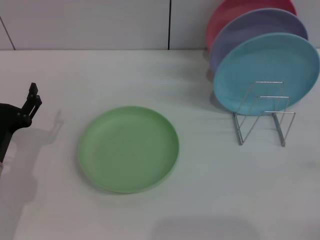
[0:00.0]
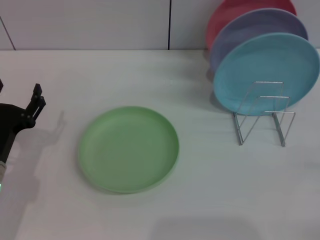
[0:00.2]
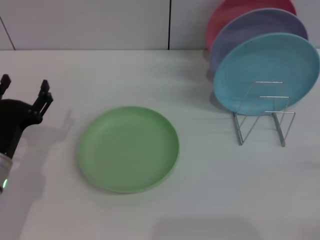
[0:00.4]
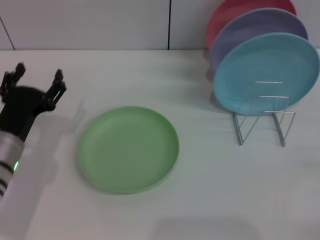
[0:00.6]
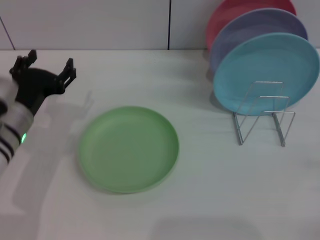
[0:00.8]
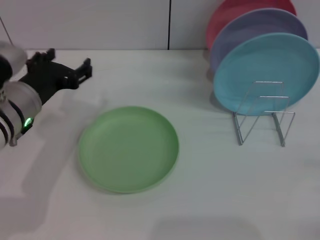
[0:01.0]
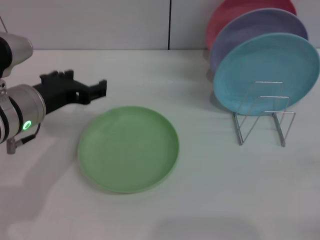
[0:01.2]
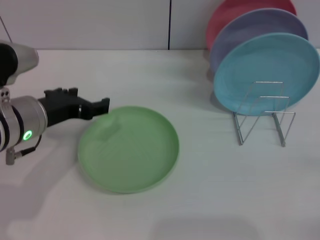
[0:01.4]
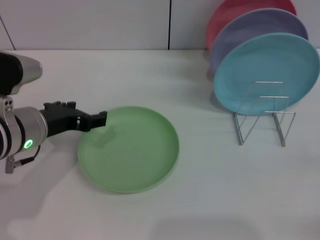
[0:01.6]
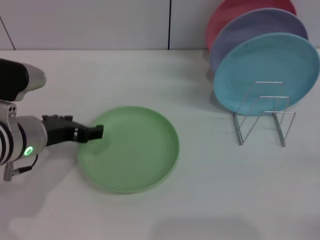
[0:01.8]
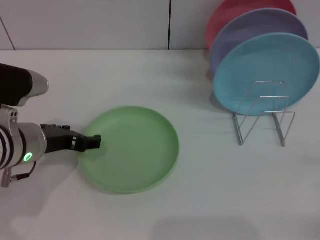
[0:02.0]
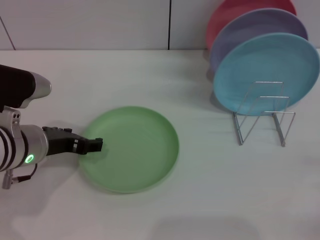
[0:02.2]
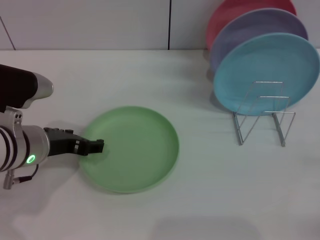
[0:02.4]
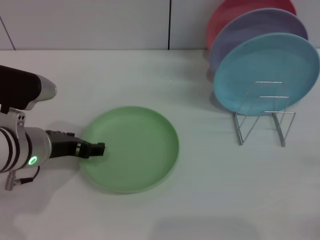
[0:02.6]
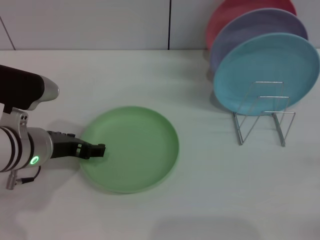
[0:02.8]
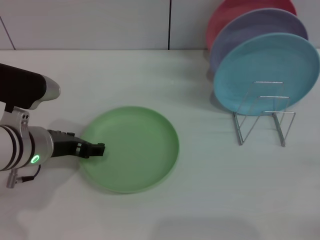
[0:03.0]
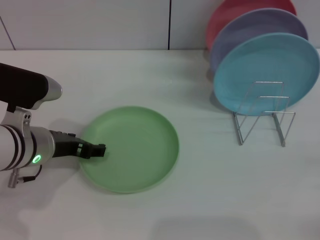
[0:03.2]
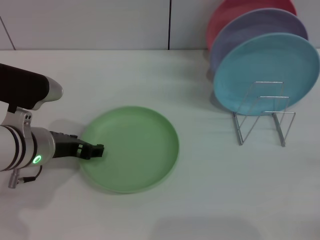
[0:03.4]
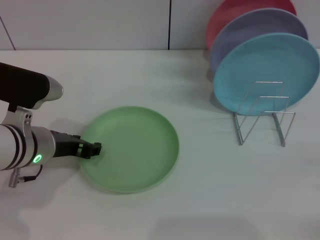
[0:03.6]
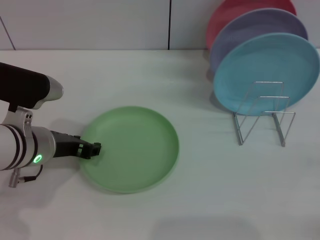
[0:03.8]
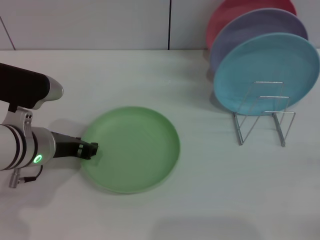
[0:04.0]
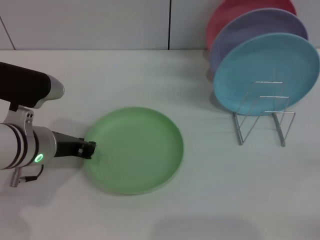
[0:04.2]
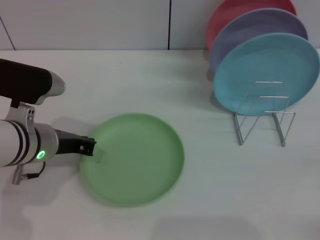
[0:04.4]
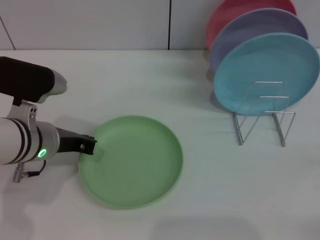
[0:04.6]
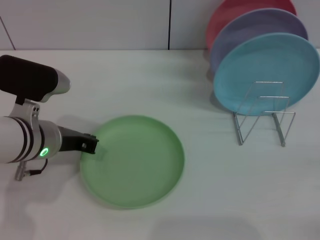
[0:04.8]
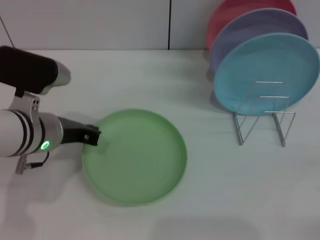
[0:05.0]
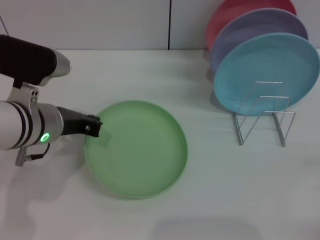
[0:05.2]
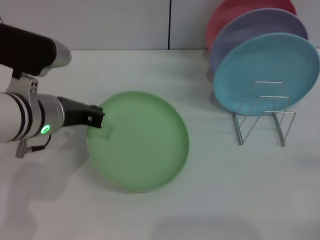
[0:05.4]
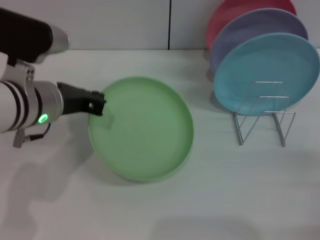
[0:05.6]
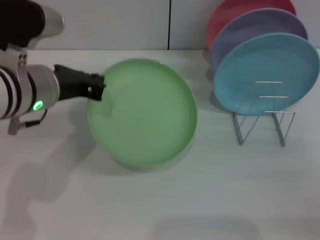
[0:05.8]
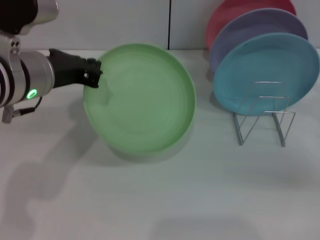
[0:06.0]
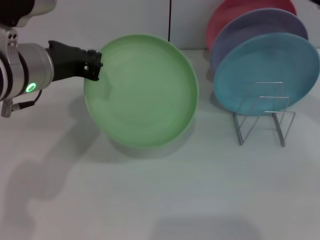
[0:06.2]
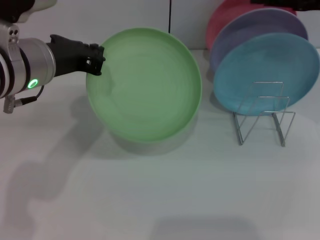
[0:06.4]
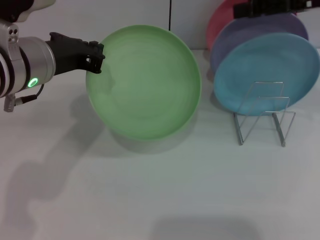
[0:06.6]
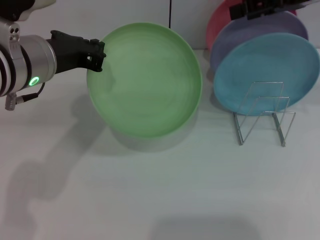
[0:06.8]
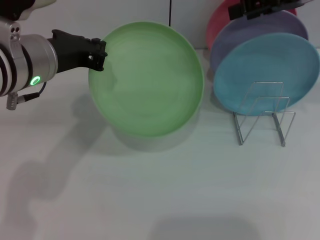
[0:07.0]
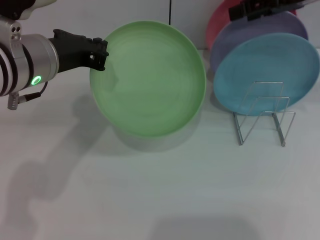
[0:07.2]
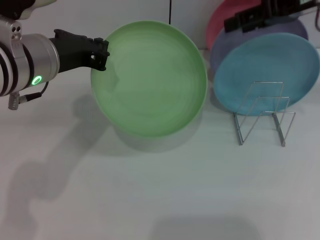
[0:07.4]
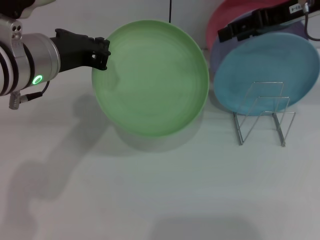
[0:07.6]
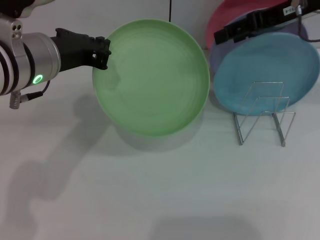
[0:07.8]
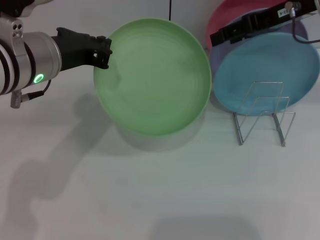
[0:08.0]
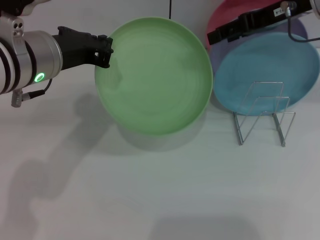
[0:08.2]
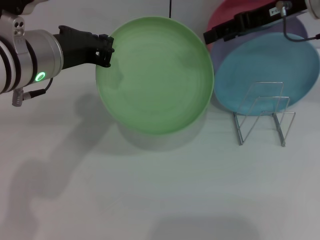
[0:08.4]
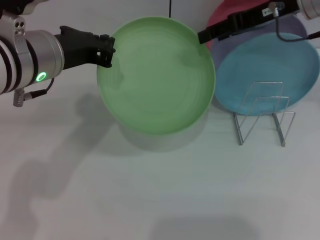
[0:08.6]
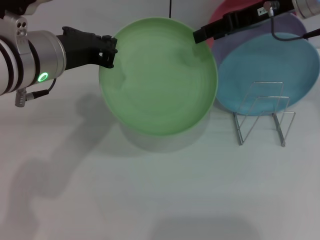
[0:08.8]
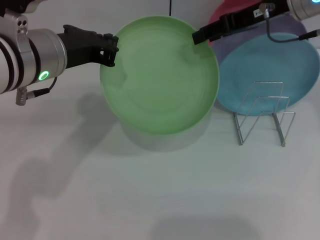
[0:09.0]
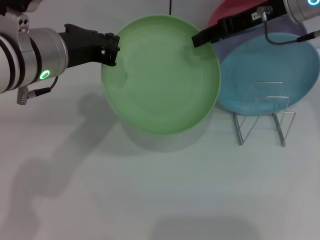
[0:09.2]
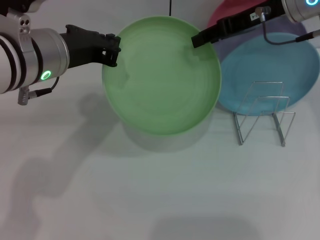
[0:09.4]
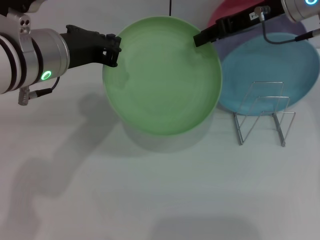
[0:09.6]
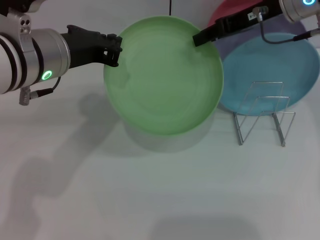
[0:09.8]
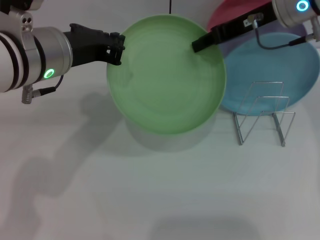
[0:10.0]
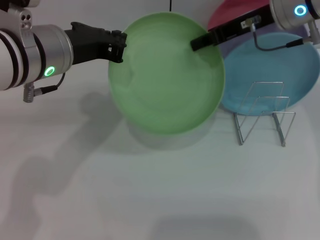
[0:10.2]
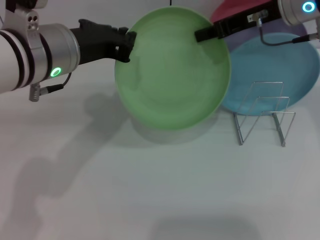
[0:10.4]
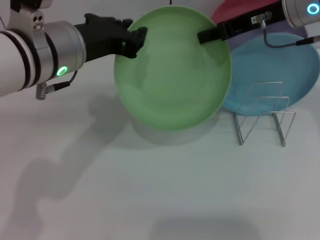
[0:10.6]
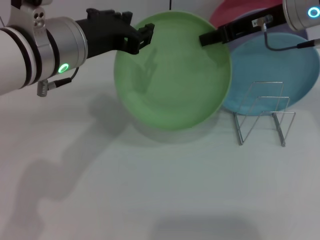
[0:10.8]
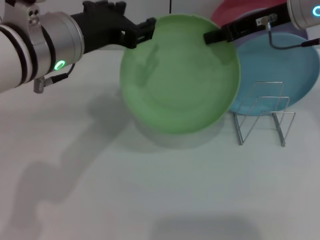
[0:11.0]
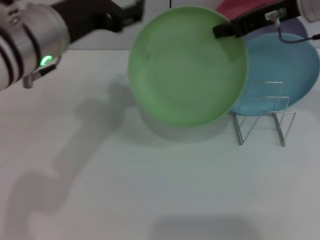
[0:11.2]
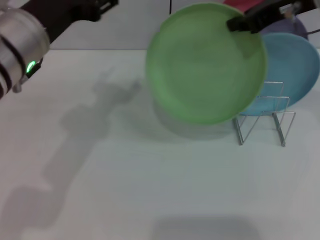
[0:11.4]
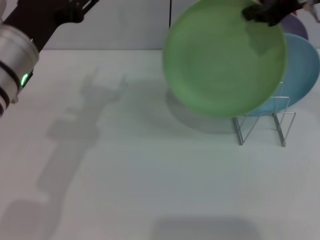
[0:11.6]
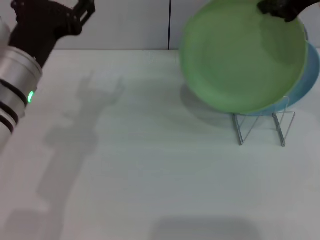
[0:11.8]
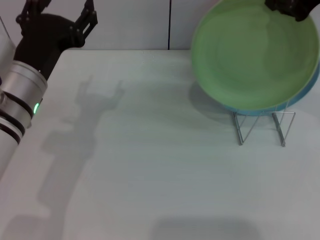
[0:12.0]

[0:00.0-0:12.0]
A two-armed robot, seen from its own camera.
Task of the whole recording: Grip the plate with one hand, pass it to the other, then set it on the shelf.
Step, 0:00.0 to 0:06.0: Pick up the plate with the left gripper.
Step, 0:06.2 to 0:11.4: Pass the plate from the left gripper to the right gripper.
0:00.0 to 0:01.6: The left gripper is displaced upward and to the right by about 10 cm.
0:01.6 to 0:03.0: The grippers make only small movements.
0:03.0 to 0:04.4: The left gripper closes its fingers.
0:04.4 to 0:06.0: The left gripper heads upward, covering approximately 10 cm. Meanwhile the right gripper moves upward and forward, roughly 15 cm.
0:06.0 to 0:07.6: The right gripper heads upward, forward and to the left, covering roughly 20 cm.
0:07.6 to 0:09.0: There are only small adjustments of the grippers.
0:09.0 to 0:10.4: The right gripper closes.
0:10.4 to 0:12.0: The left gripper goes about 5 cm downward, and opens its fingers, while the right gripper goes about 10 cm upward and backward.

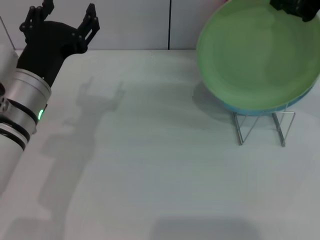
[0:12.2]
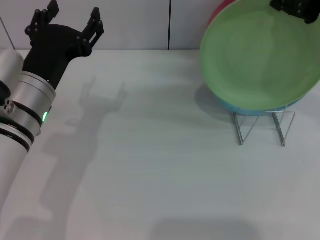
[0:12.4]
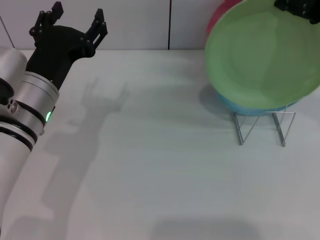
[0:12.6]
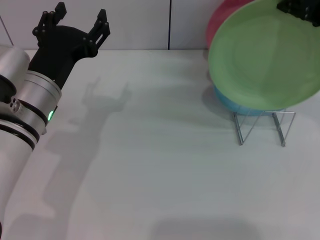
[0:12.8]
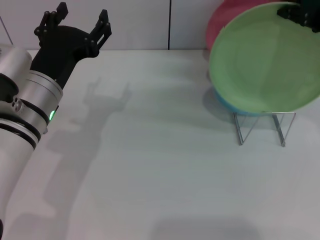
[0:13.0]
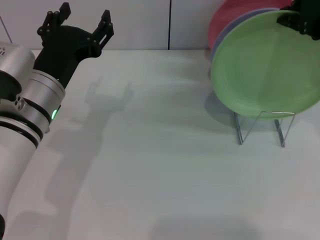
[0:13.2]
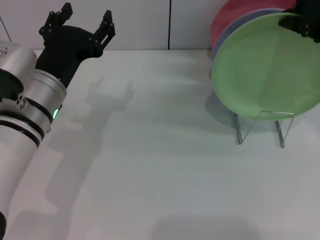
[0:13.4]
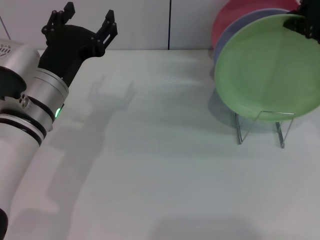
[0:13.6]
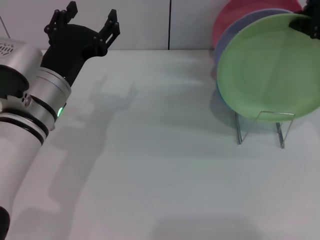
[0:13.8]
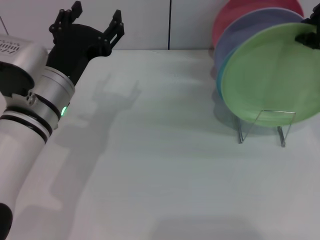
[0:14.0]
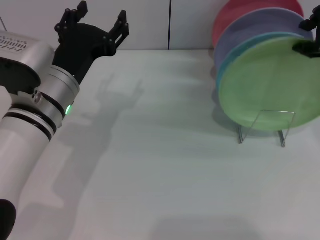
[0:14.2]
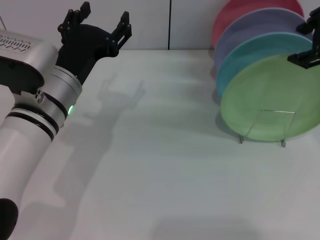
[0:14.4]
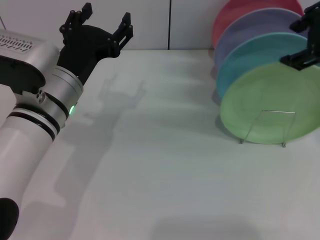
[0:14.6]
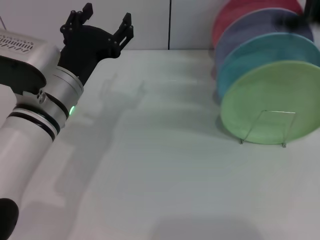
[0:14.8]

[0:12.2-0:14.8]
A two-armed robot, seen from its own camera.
Task of the whole recording: Grip the plate with one hand, pass it to the other, then set it on the shelf.
Step, 0:12.2 to 0:14.4: Place the plate on the shelf with the right gripper.
0:12.2 to 0:13.4: The grippers make only small movements.
0:13.4 to 0:14.8: The right gripper opens.
